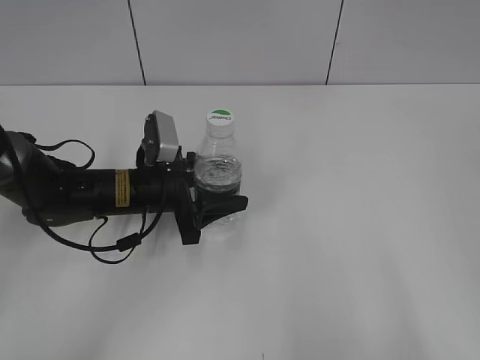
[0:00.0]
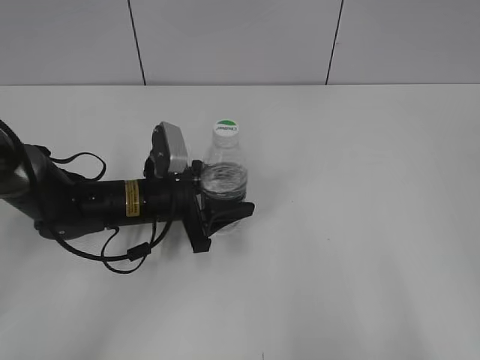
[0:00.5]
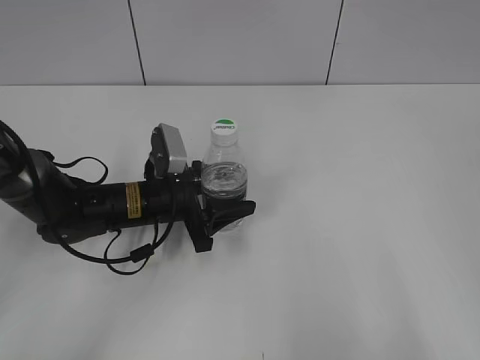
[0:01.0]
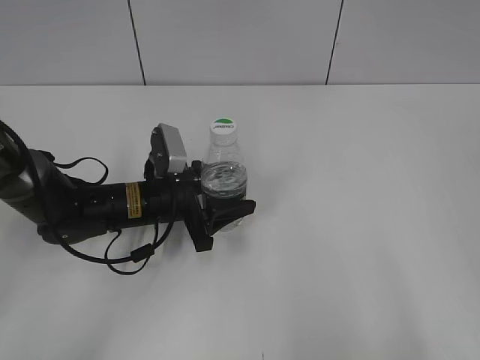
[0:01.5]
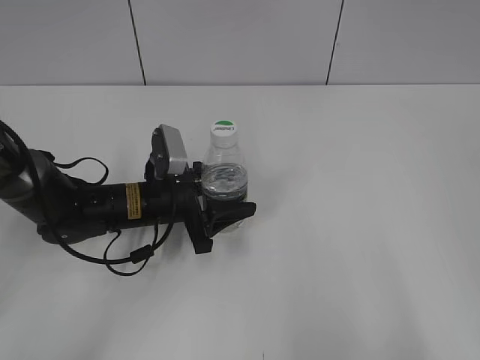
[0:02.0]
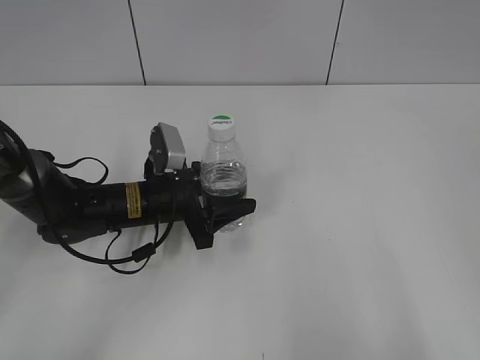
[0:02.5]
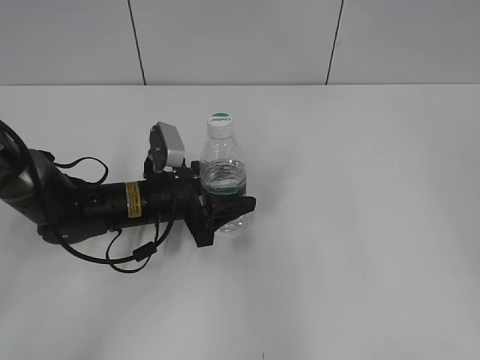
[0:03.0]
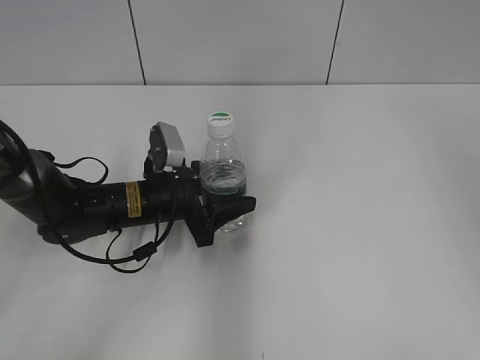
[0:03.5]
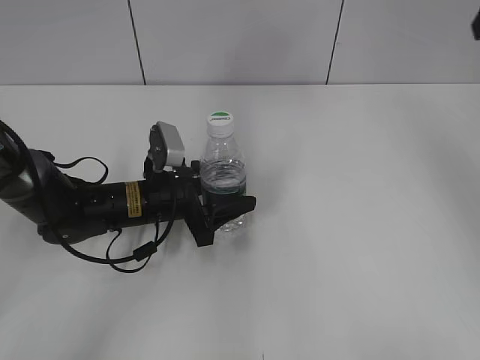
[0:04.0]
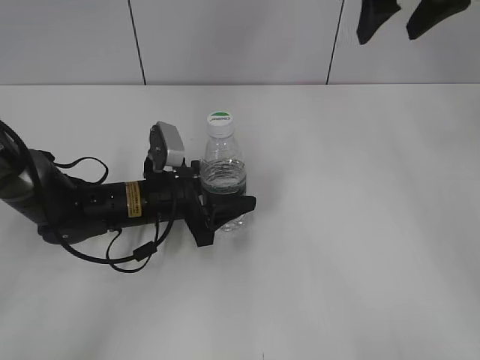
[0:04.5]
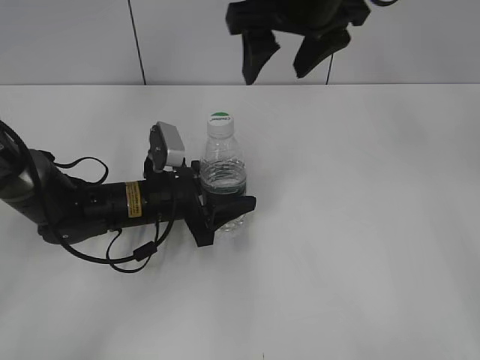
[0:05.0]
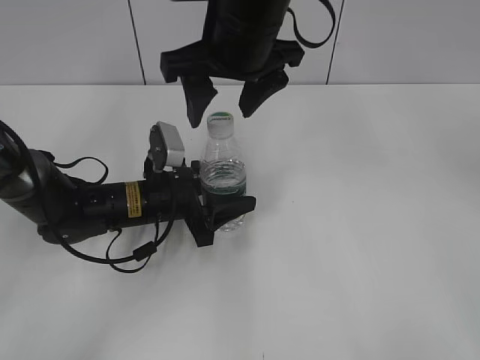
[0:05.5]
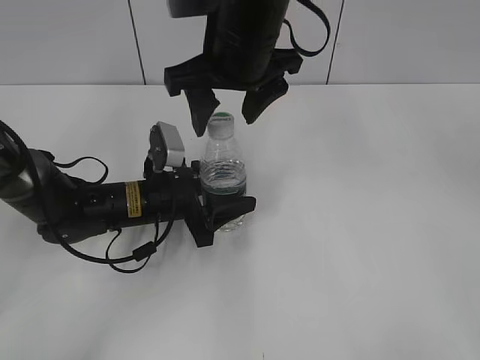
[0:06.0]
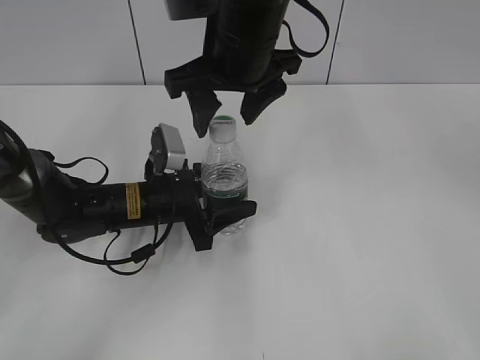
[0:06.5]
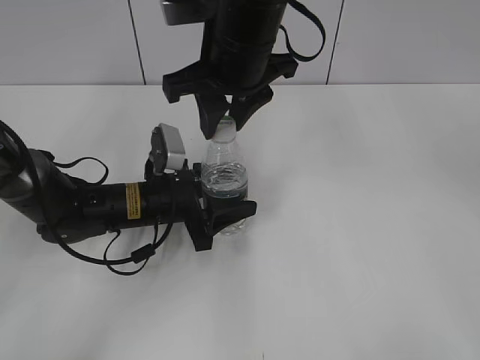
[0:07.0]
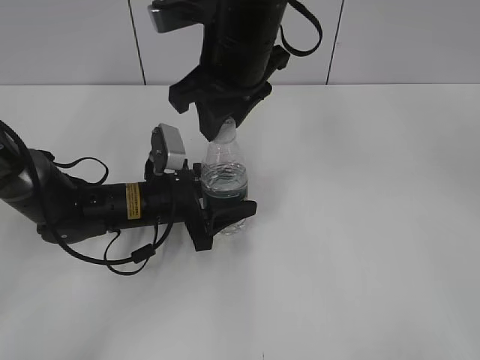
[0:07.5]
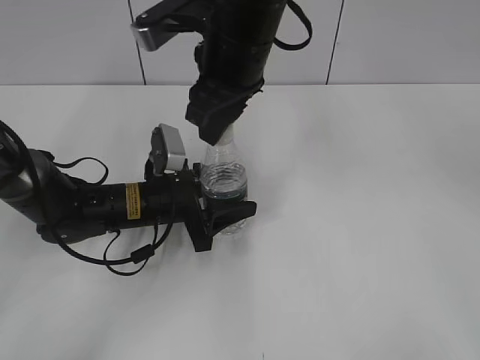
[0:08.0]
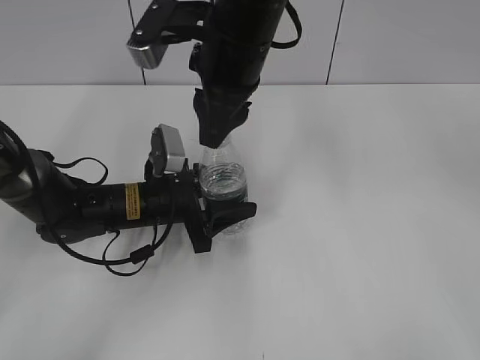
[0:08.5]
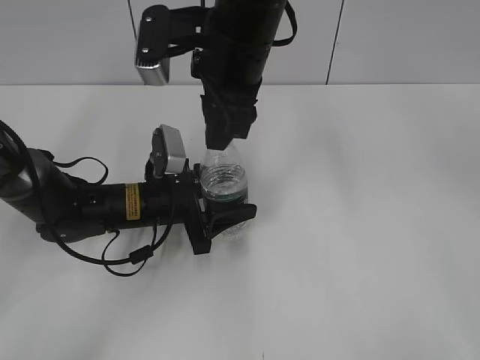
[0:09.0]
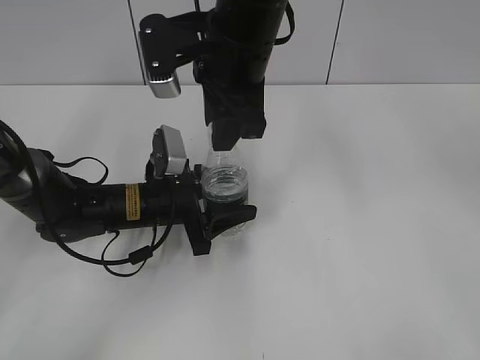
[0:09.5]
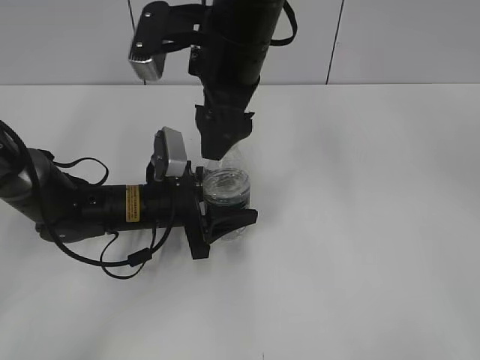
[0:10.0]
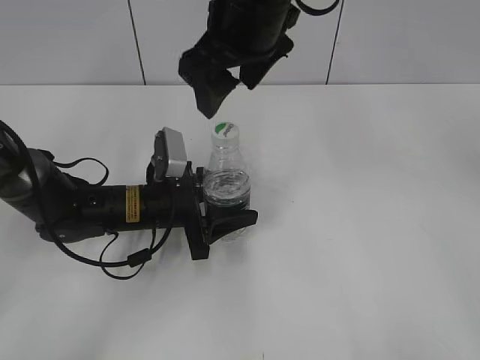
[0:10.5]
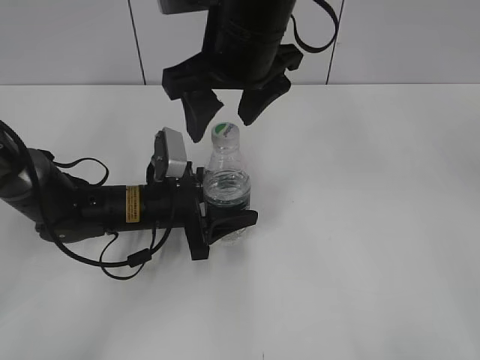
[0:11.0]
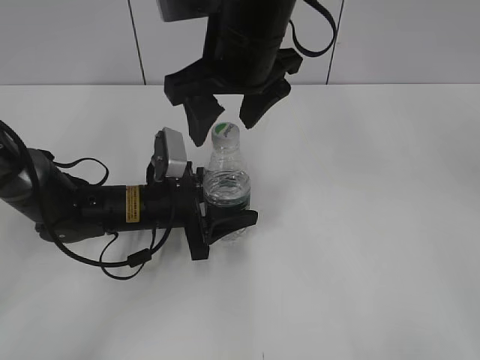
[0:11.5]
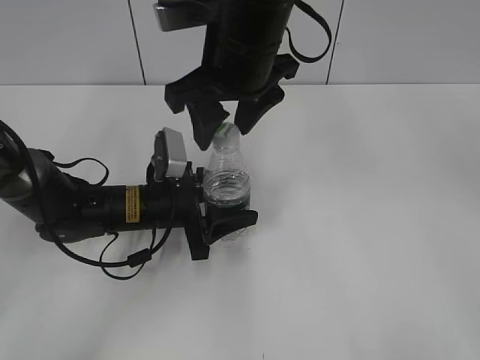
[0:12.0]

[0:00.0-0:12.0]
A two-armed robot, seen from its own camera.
Step, 0:00.0 to 0:01.5: Lift the bottle and move it to the center of the table with the left gripper.
0:00.0 to 0:02.0: The grippers move only a little.
0:02.0 to 0:04.0: The right gripper heads forward, covering approximately 35 cm.
0:04.0 to 0:06.0: The right gripper shifts approximately 30 cm to the left.
0:06.0 to 0:08.0: The right gripper closes up.
0:08.0 to 0:10.0: The right gripper opens.

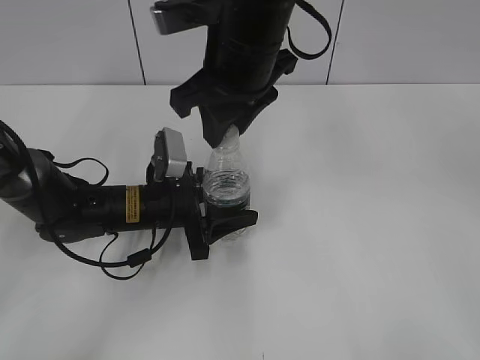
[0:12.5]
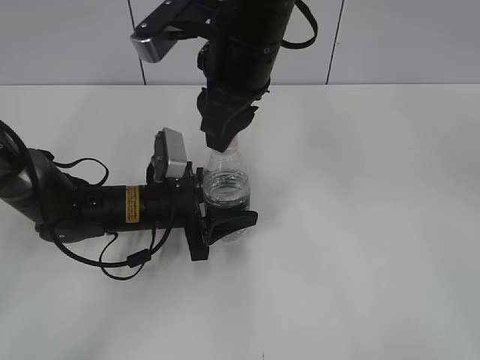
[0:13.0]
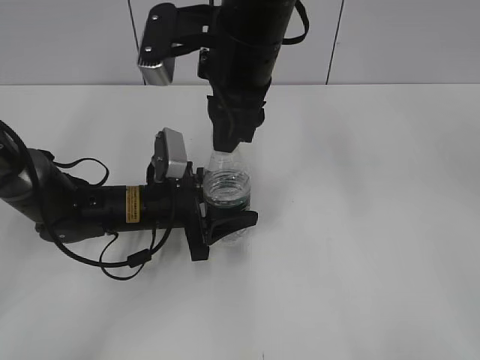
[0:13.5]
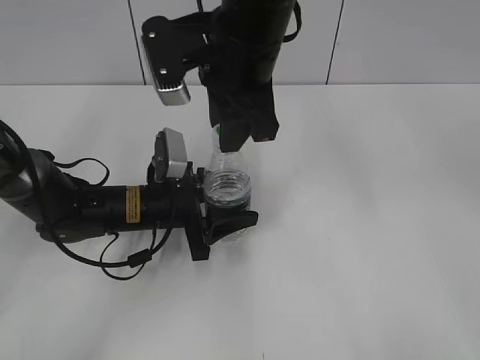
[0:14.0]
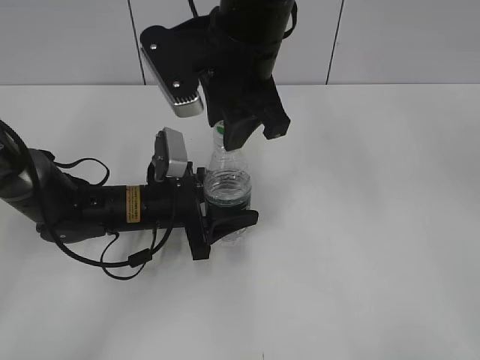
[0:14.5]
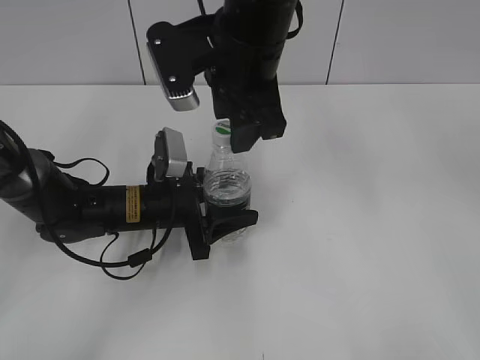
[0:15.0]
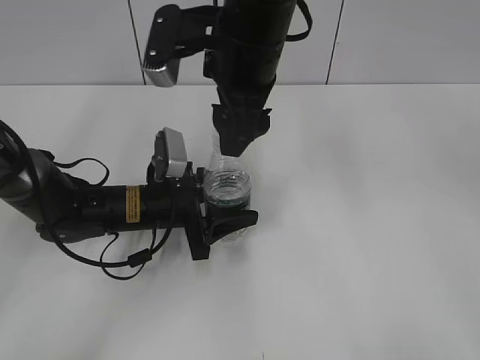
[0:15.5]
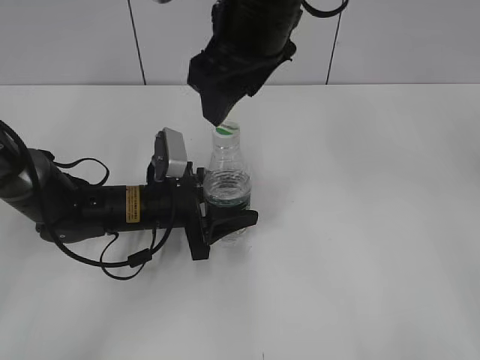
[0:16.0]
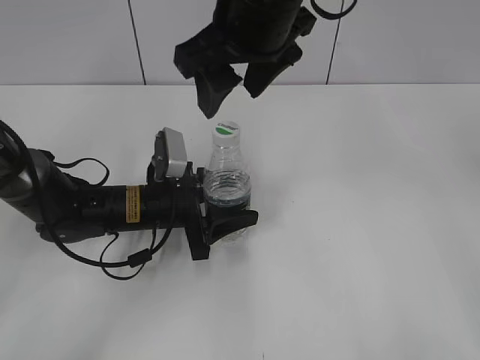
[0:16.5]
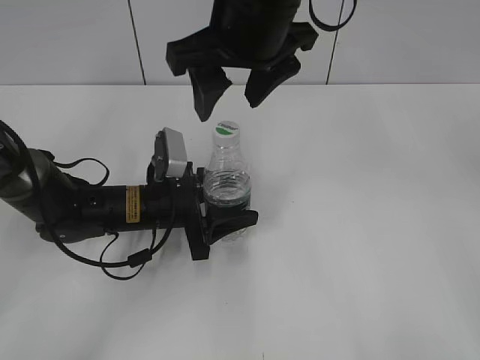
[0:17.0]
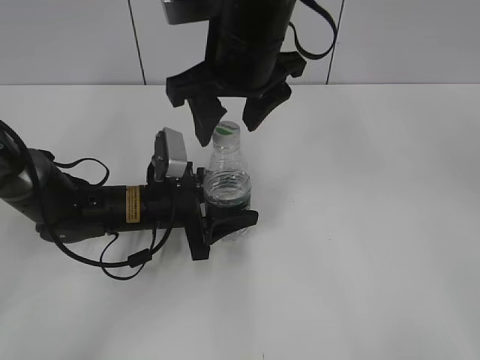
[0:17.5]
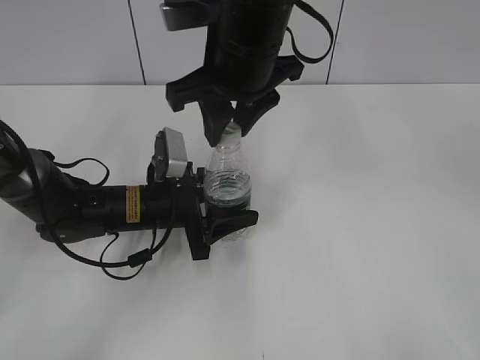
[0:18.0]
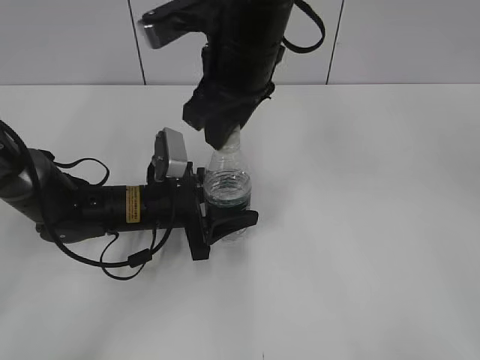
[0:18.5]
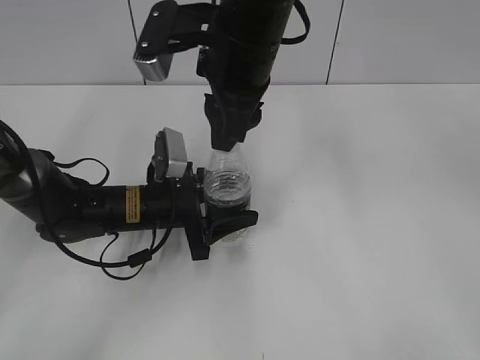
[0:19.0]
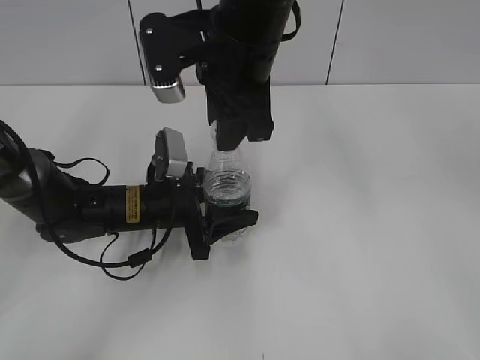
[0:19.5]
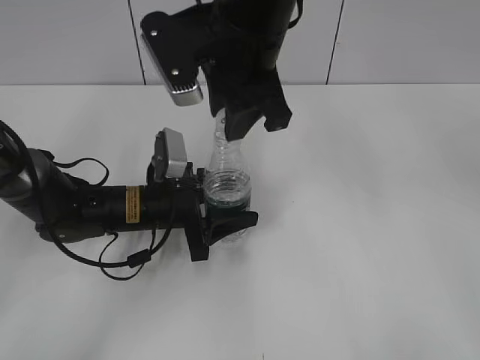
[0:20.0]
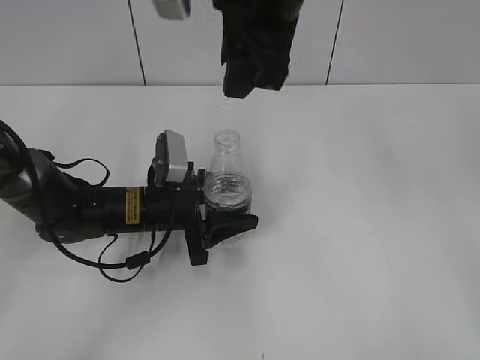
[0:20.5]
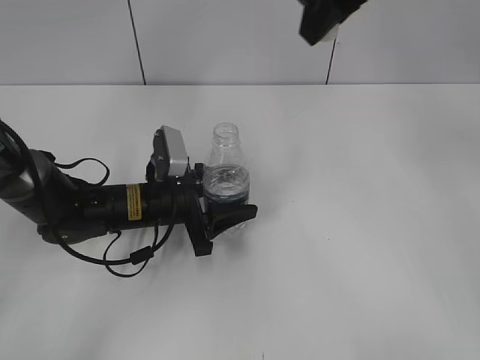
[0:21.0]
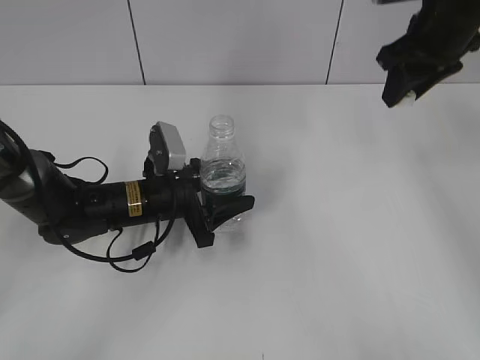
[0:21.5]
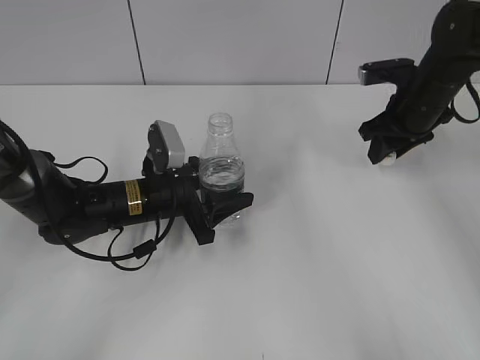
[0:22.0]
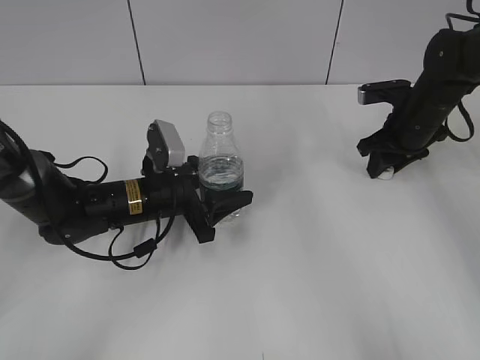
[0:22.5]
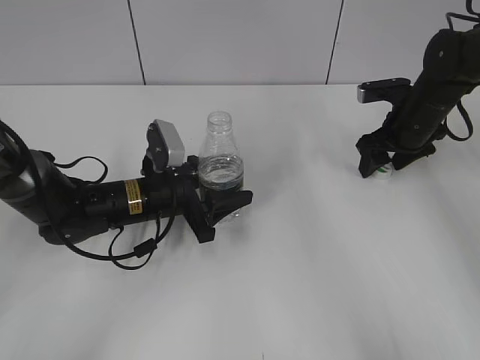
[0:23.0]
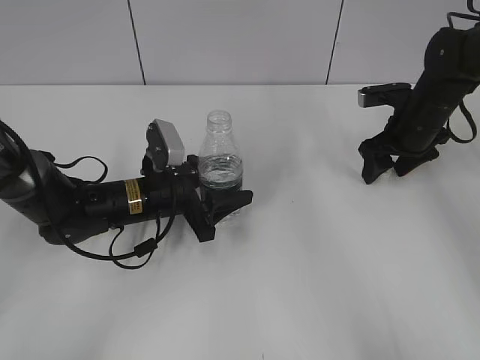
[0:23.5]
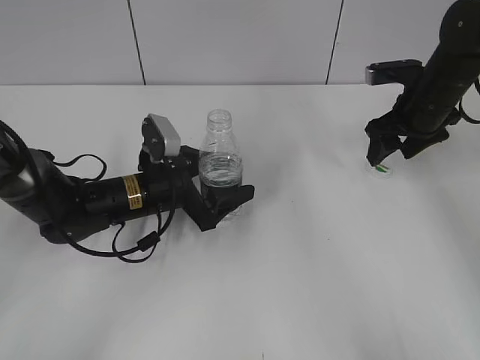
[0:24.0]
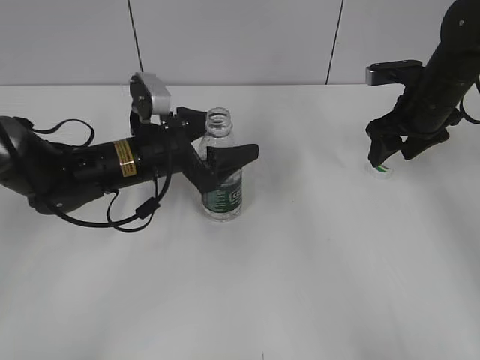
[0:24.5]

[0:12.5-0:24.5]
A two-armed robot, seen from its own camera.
Step, 0:12.5 to 0:20.0: Unscrew the bottle cap with the right gripper while holding the bottle with the left gripper.
Step, 0:20.5 to 0:23.5: Place the bottle cap on the table with the right gripper.
Step, 0:24.0 to 0:24.5: Place the bottle on the table with the left gripper.
0:14.5 to 0:16.5: The right gripper opens.
0:16.5 to 0:18.5: The right gripper closes its fingers.
0:18.5 to 0:20.5: The right gripper travels upward by some 5 cm.
0:20.5 to 0:22.5: The right gripper moves to the right, downward and forward, about 35 cm.
0:22.5 to 0:24.5: The right gripper opens up. Meanwhile the left gripper moves upward, approximately 5 cm, and opens.

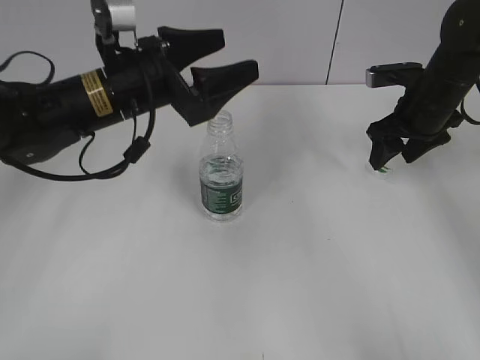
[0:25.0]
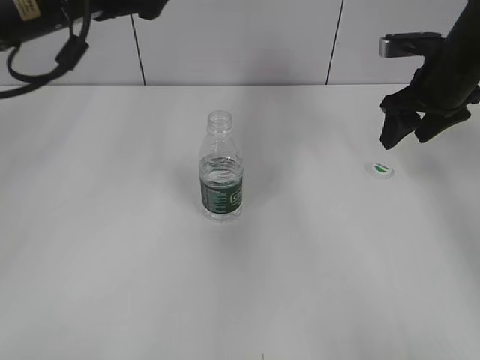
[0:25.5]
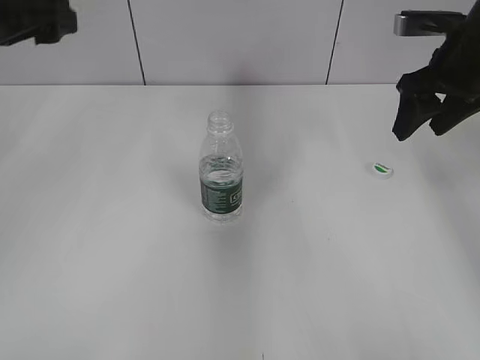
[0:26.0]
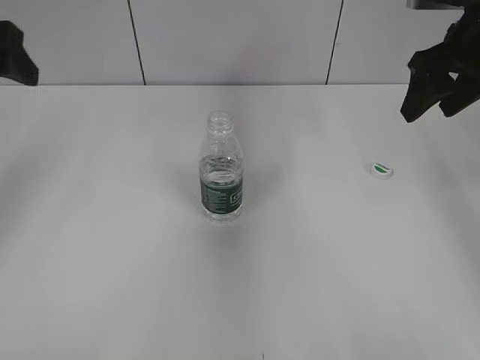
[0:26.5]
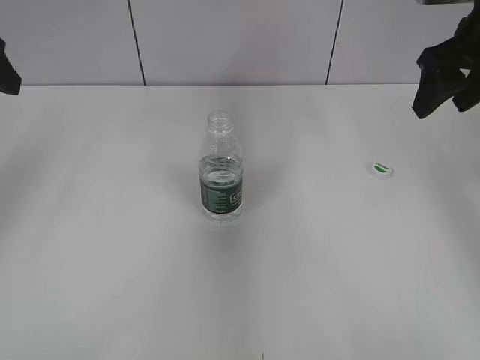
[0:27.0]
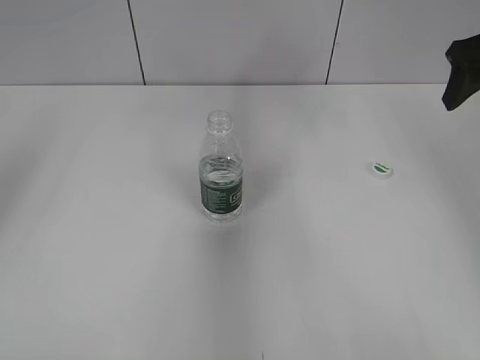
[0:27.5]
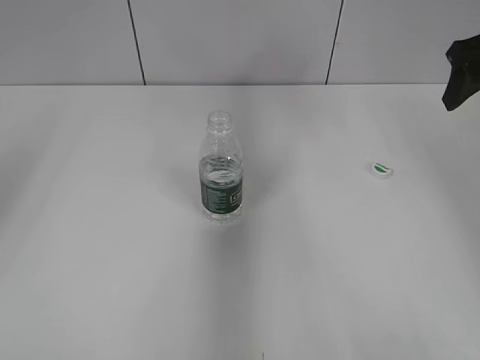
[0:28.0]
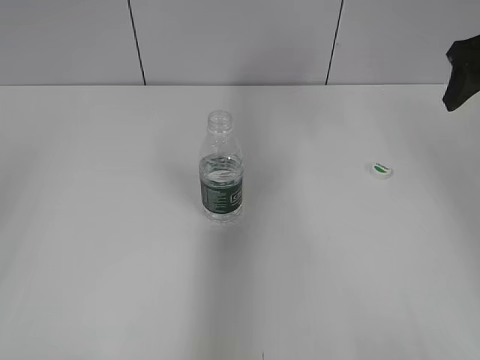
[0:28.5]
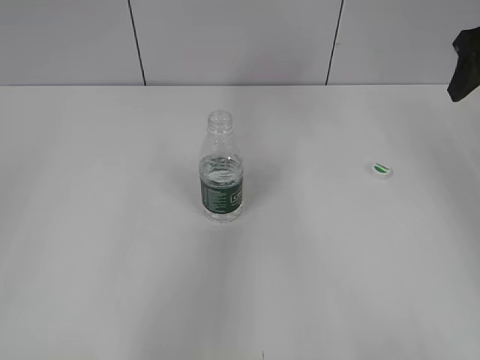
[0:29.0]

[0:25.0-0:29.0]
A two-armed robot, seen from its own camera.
0:25.0 to 0:27.0: The right gripper shifts approximately 15 cm upward and backward. Meanwhile the left gripper heads to the left and upward, covering about 20 cm.
